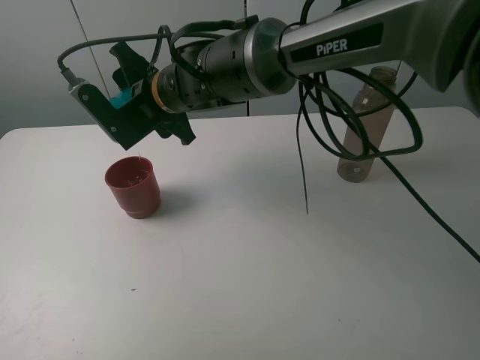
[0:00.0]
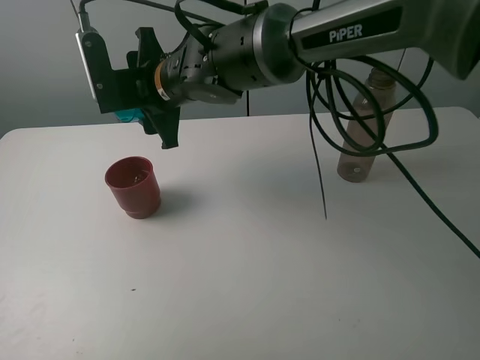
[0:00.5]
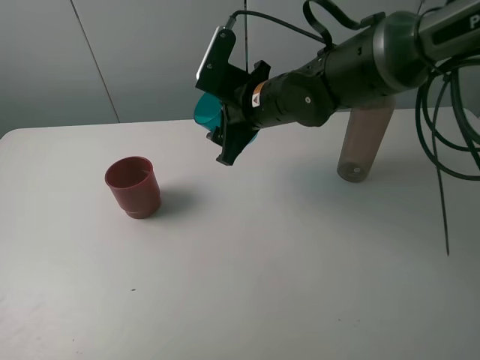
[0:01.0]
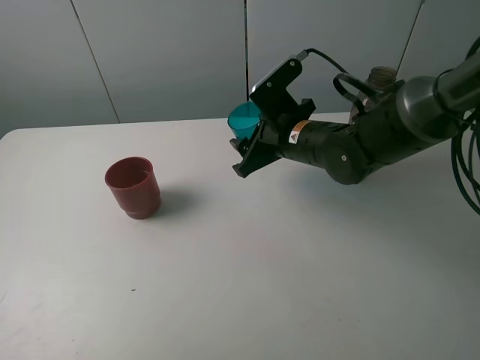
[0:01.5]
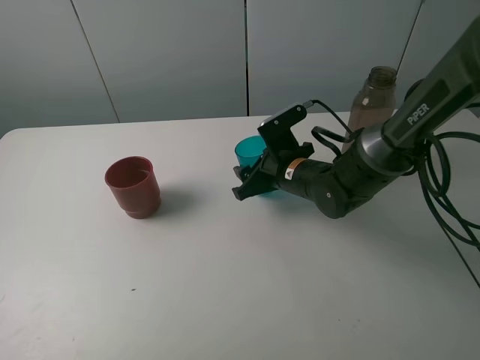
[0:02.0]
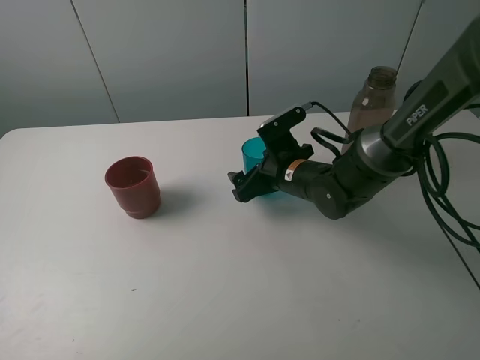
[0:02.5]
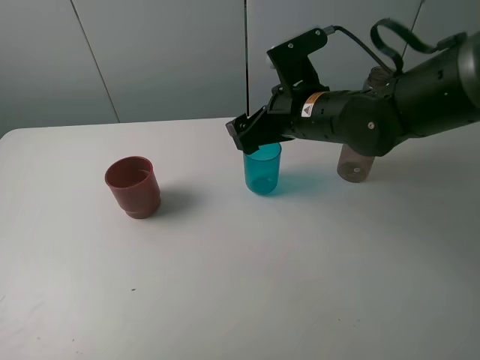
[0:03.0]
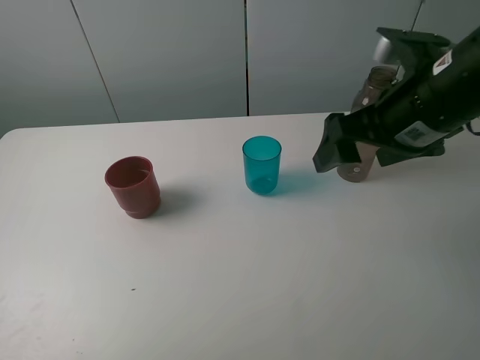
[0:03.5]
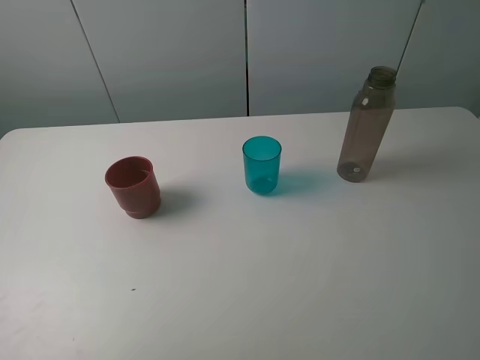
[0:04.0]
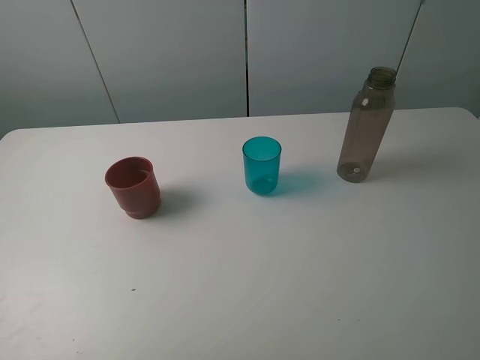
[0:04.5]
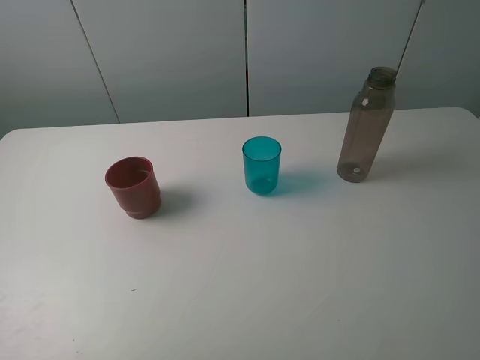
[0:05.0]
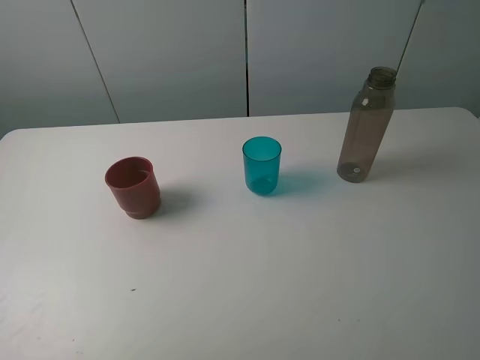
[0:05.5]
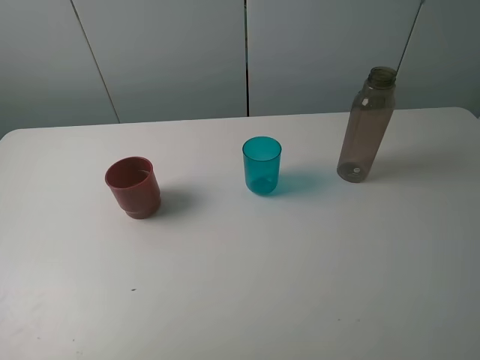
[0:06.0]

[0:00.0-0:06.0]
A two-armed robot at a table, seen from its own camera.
Task of the whole recording: pick up the bottle and pour water into the cup, then pick up the cup containing water and pour it into another cup.
Step, 0:00.5 to 0:02.5: Place the blue cup with the right gripper.
0:00.0 to 0:02.0: The right gripper travels to the right and downward by about 20 cm.
0:02.0 to 0:04.0: The right gripper moves upward, backward and to the right, about 40 cm, and opens its fingers.
